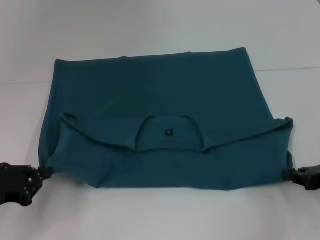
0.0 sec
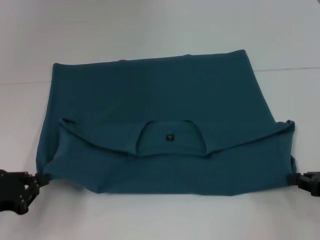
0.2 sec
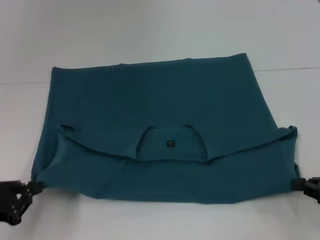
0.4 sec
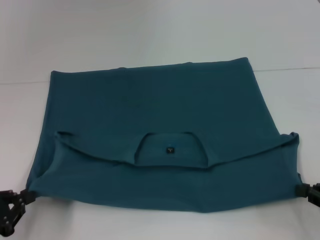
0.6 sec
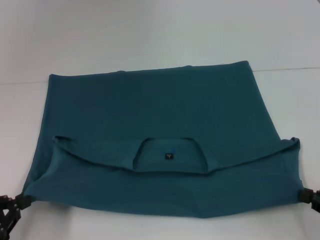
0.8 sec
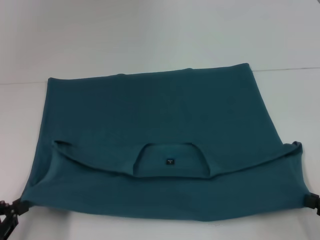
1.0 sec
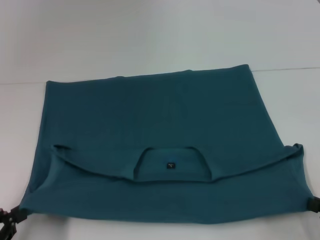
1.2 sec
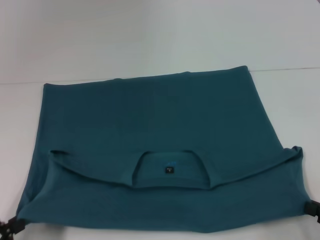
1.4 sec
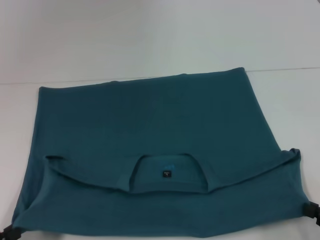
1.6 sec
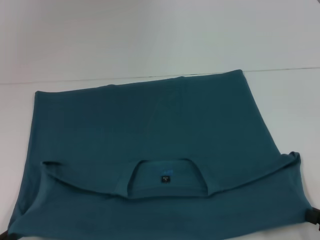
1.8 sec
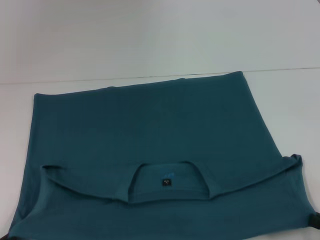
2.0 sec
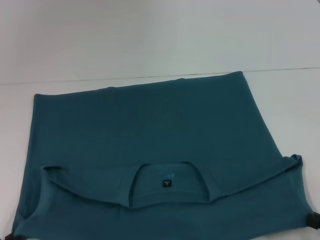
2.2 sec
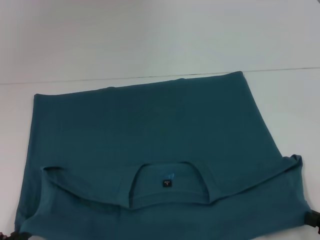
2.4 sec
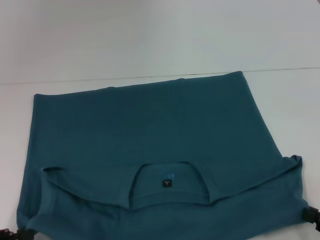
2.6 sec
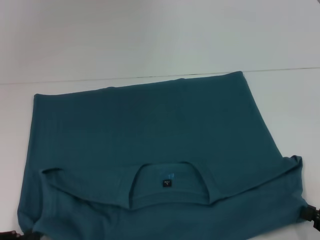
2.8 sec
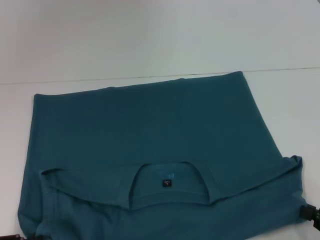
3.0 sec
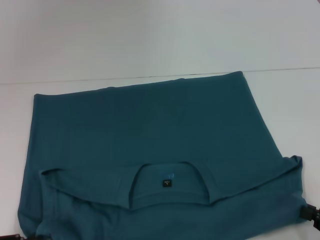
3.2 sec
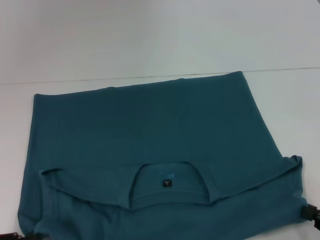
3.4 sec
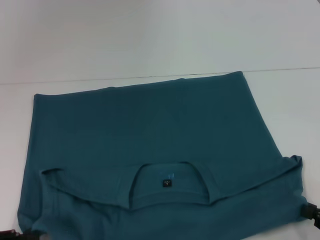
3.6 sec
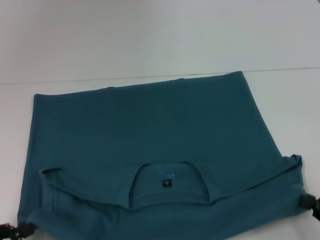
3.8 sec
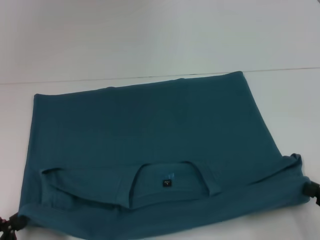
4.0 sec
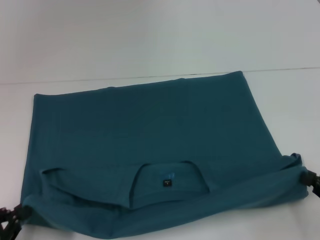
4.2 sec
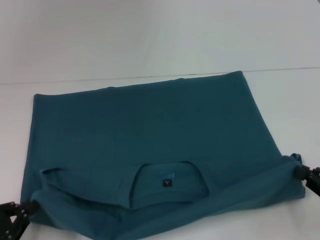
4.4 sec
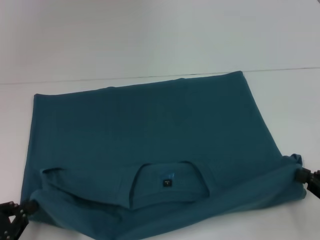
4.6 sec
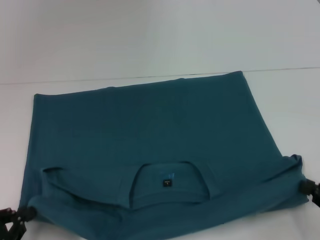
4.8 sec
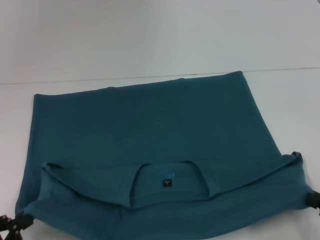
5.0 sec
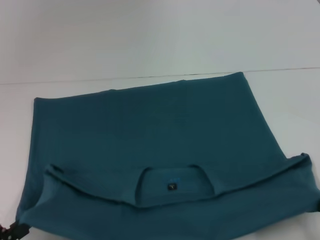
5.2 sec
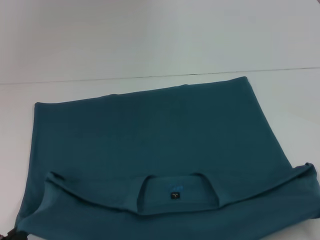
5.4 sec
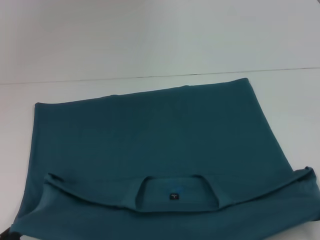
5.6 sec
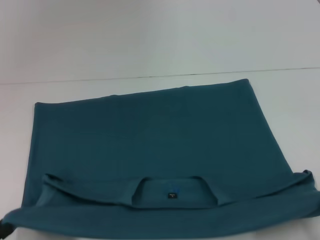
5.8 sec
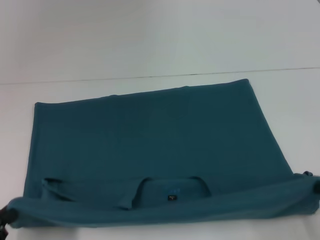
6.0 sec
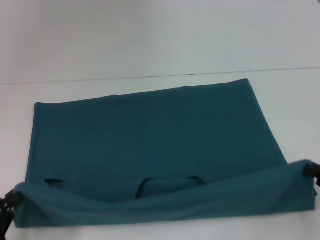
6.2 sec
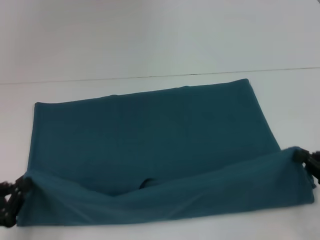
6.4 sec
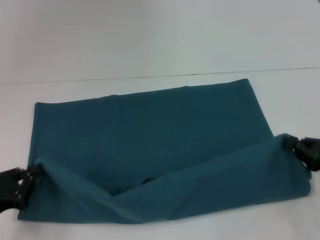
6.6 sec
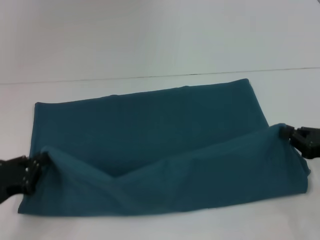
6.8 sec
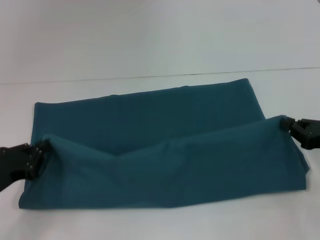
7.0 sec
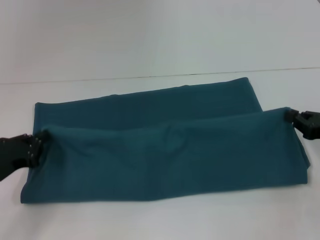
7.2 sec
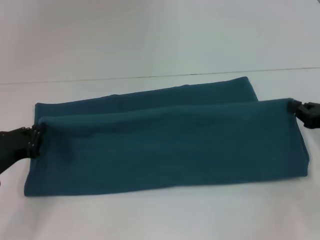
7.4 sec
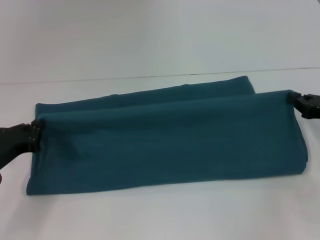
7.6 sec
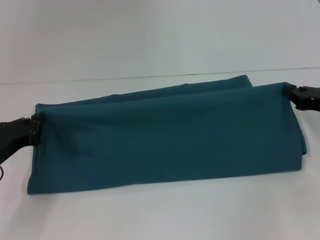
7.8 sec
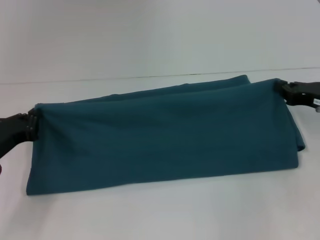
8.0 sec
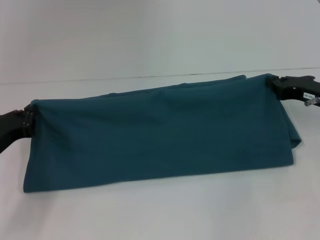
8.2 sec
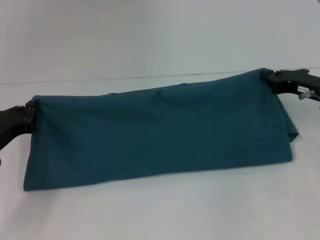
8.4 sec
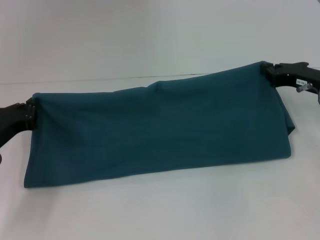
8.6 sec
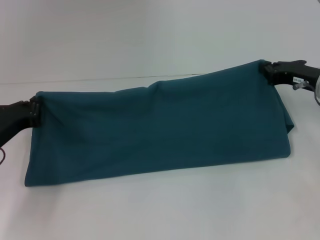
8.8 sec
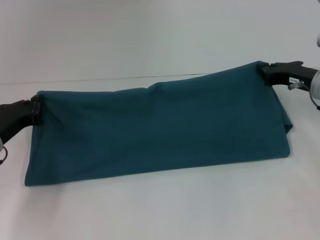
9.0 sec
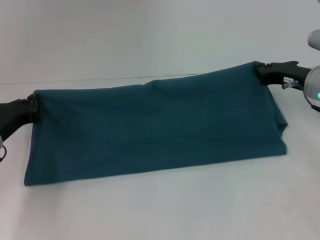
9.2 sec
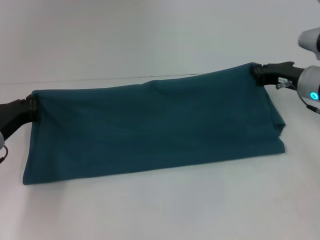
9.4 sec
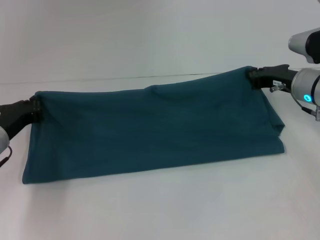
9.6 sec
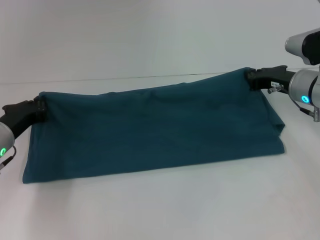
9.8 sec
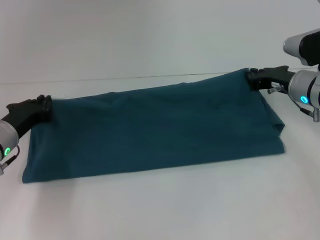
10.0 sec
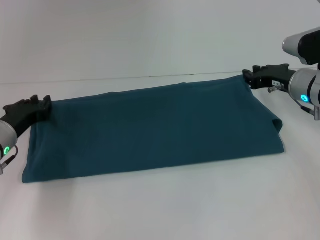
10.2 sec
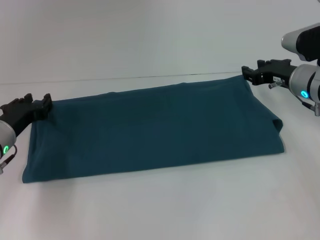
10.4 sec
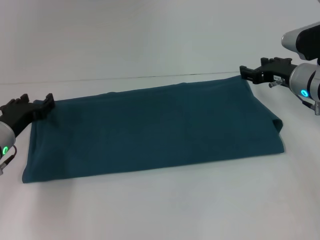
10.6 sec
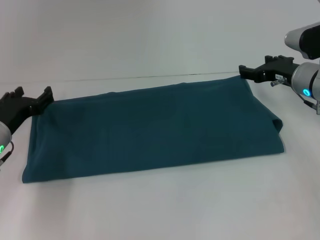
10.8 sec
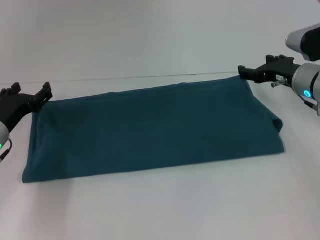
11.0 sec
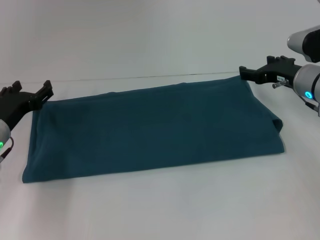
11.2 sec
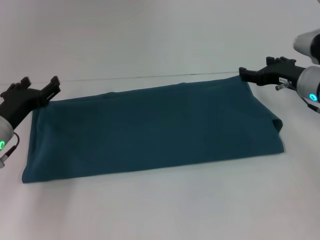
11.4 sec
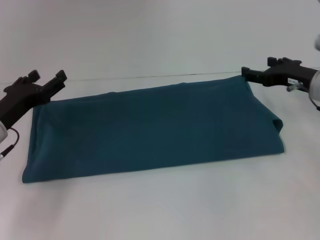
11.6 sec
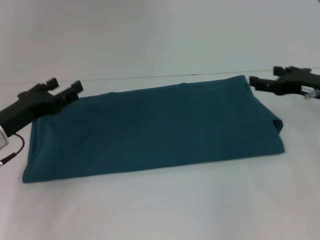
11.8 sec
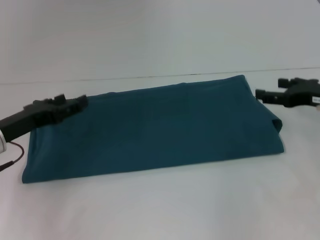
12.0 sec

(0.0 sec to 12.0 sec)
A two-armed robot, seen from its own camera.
Step, 0.0 sec - 2.6 sec: Pull the clothes with your left hand.
Step, 0.0 sec - 2.6 sec: Pull the clothes with your right hand.
Step, 2.8 sec - 10.8 sec: Fold the clothes to the right.
0.0 sec - 1.6 sec: Both grippers move backward, approximately 10 cm.
1.6 sec - 4.4 sec: The grippers stay close to where they were, moving slightly.
6.0 sec - 7.6 sec: Both grippers move forward, some 15 cm.
7.6 sec - 9.0 sec: The right gripper goes some 10 cm forward and to the left.
9.0 sec - 10.4 sec: There are only small adjustments of the grippers.
10.4 sec - 12.0 sec: The right gripper moves backward and to the right, approximately 10 cm, and opens up. Meanwhile the left gripper ends up about 5 cm from where it was, and opens its fingers.

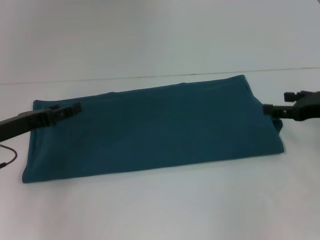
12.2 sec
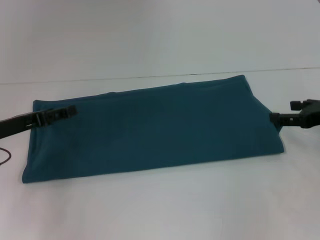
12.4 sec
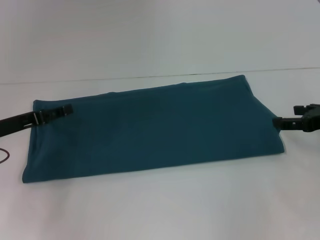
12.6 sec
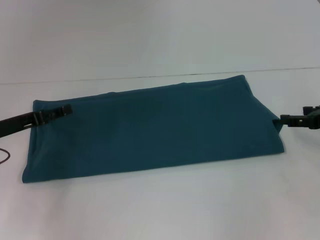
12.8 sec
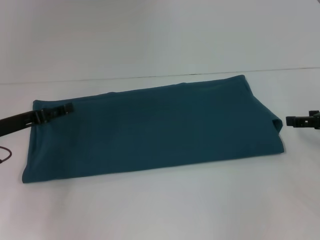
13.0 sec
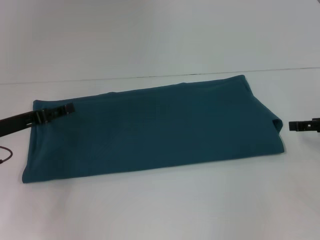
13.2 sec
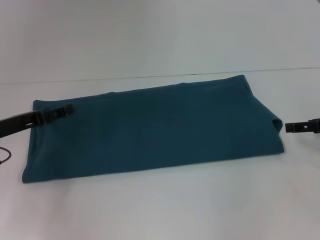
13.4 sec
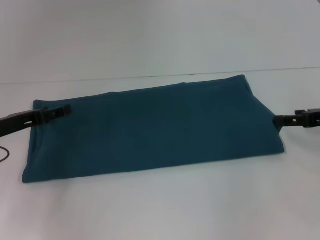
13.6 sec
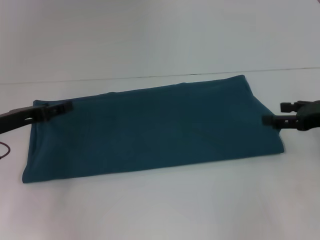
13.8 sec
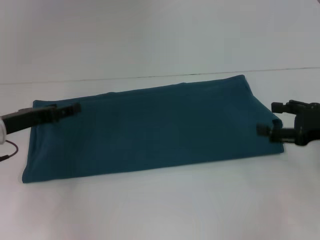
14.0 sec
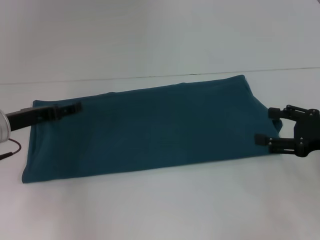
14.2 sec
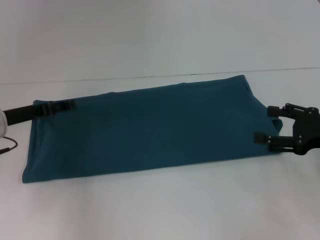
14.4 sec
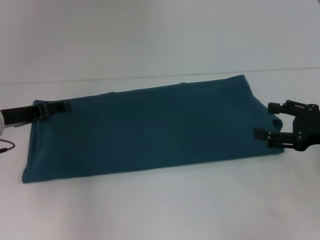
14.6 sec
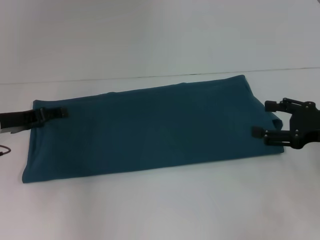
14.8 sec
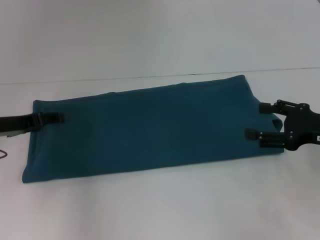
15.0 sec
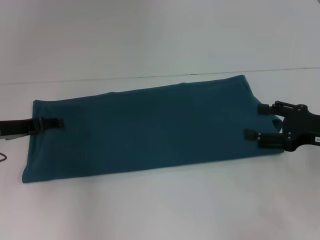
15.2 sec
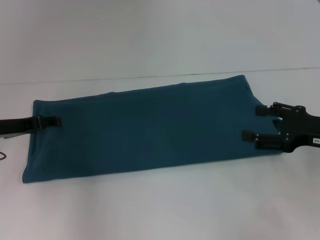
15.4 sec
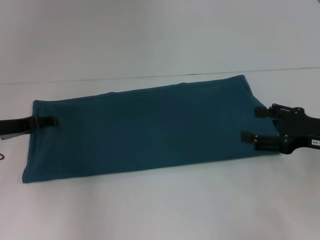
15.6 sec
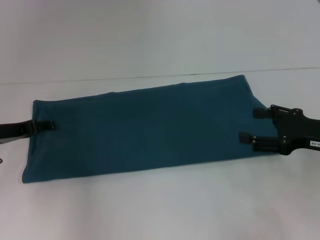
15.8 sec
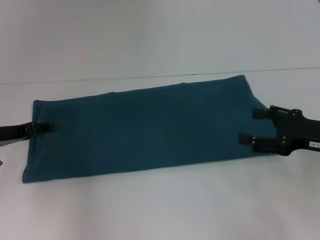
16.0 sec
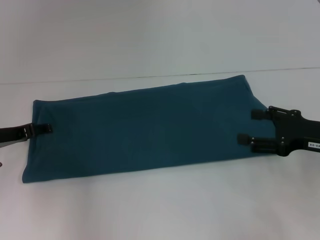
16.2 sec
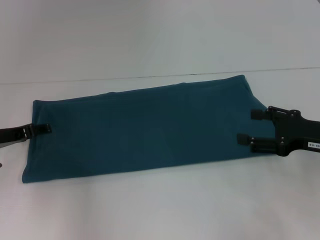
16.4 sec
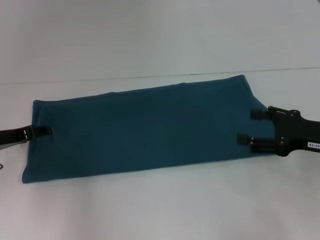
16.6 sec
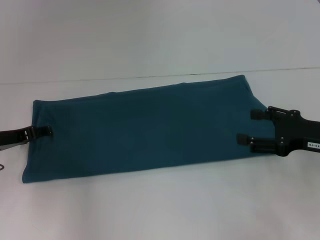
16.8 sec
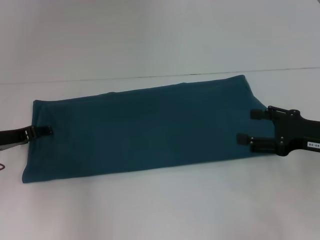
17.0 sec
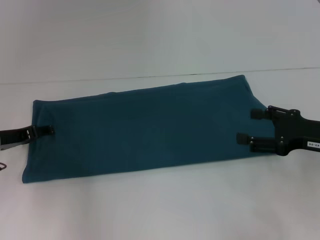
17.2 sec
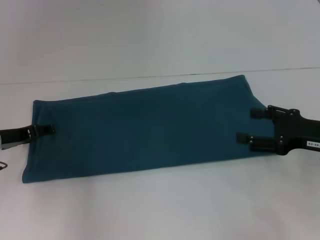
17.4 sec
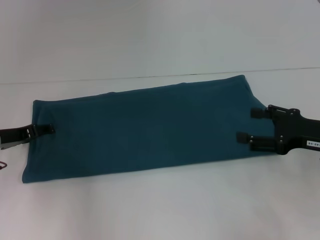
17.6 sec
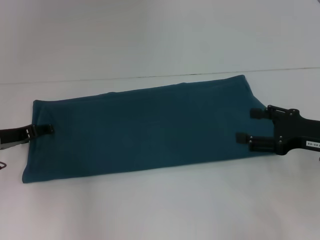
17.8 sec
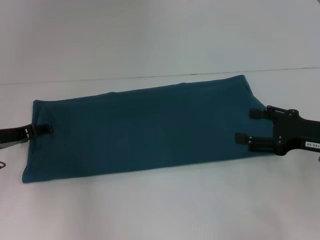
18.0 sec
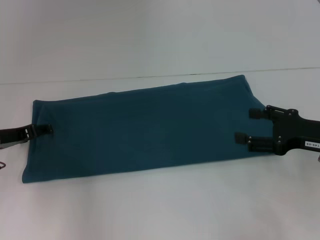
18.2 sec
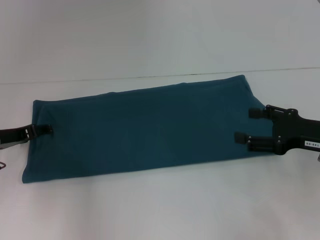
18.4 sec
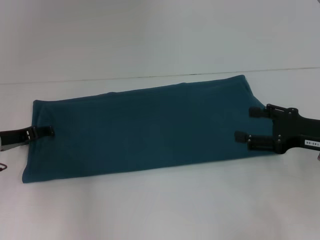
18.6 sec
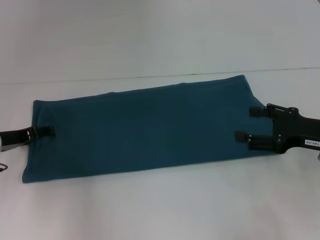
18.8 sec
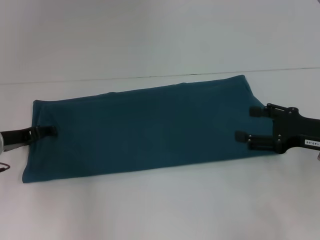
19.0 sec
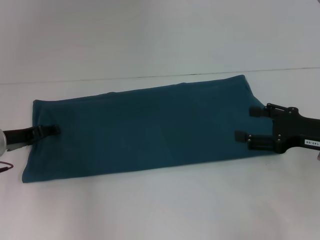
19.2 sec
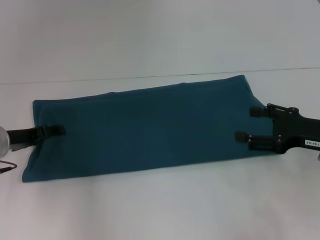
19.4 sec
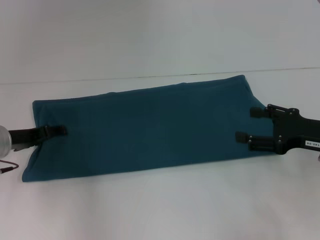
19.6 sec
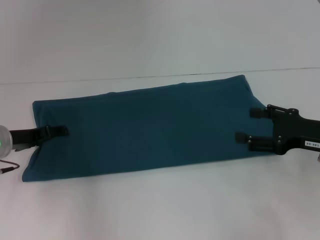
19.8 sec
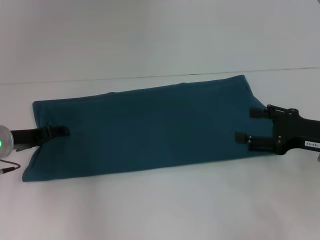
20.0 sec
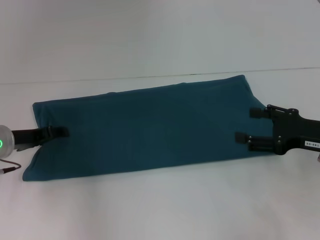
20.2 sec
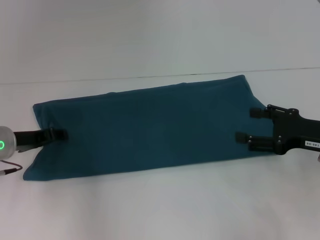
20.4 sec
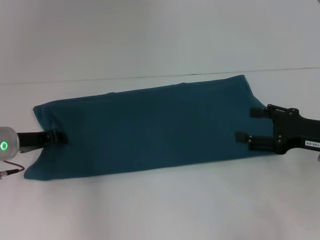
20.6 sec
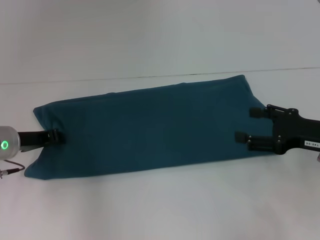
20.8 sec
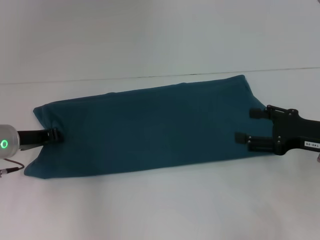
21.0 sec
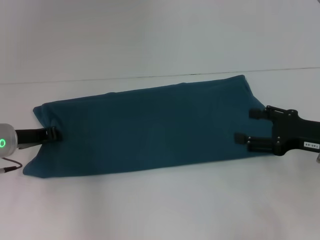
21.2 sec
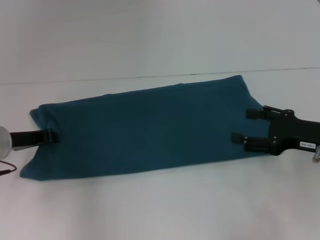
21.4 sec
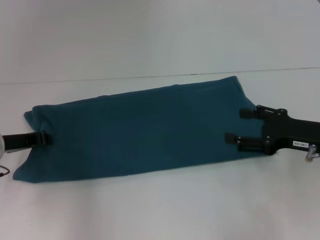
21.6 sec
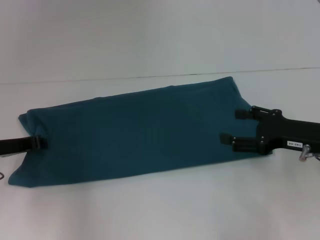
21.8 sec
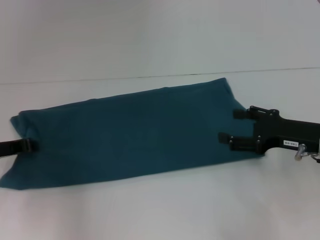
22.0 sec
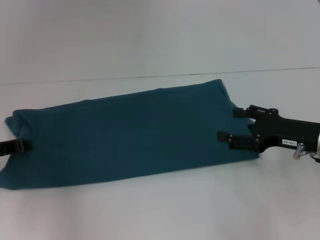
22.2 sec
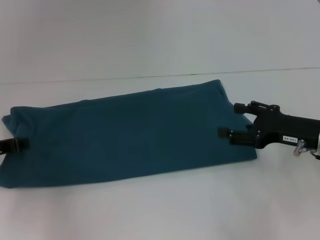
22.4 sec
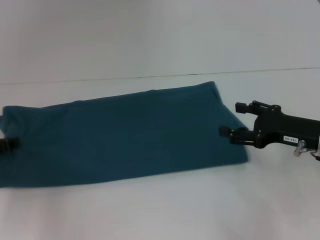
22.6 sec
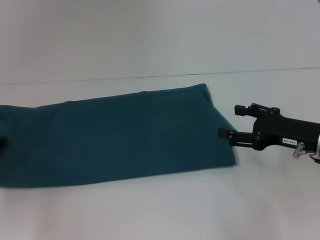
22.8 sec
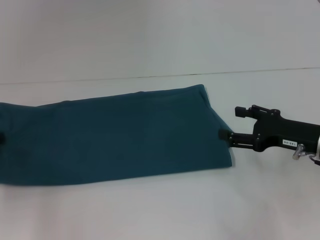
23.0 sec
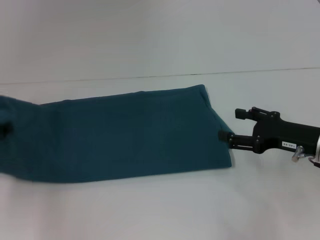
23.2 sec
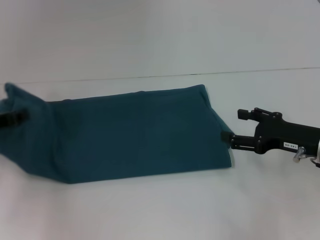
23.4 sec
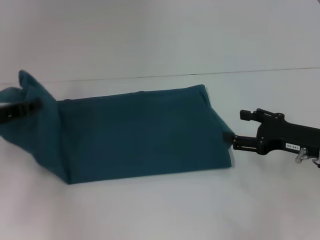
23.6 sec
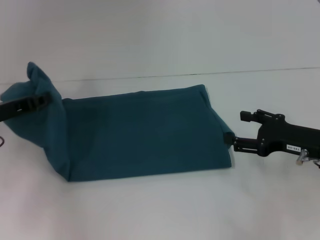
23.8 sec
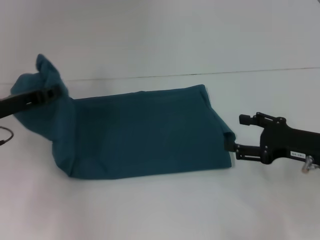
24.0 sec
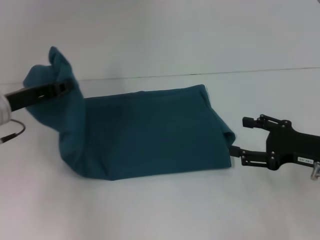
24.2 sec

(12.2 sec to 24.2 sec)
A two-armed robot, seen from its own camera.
15.2 sec - 16.6 sec: The grippers move only a little.
16.6 sec - 18.2 sec: The two grippers keep their place.
18.2 sec - 19.8 sec: There are only small adjustments of the grippers.
19.8 sec - 21.2 sec: The left gripper closes its fingers.
21.2 sec - 22.6 sec: The left gripper goes about 5 cm to the left.
22.6 sec - 24.2 sec: The left gripper heads to the right, covering some 5 cm.
